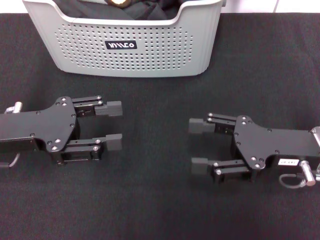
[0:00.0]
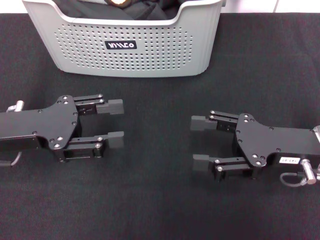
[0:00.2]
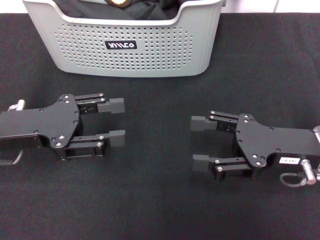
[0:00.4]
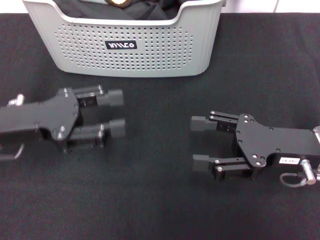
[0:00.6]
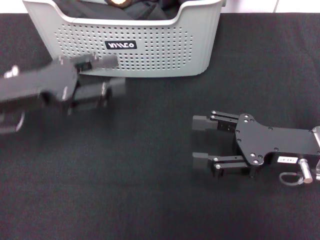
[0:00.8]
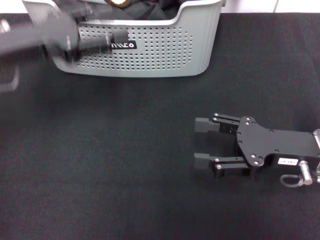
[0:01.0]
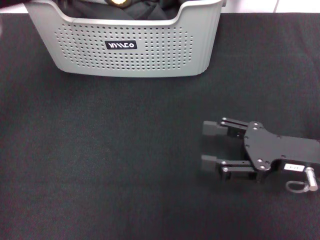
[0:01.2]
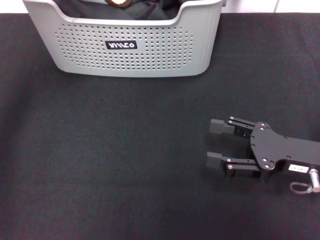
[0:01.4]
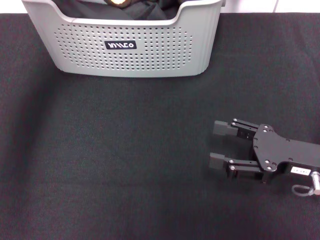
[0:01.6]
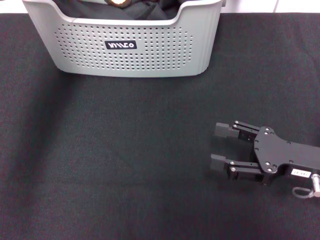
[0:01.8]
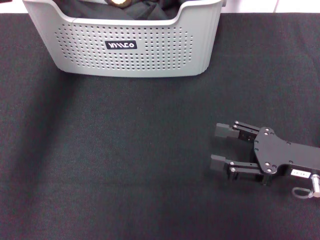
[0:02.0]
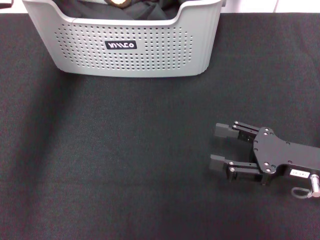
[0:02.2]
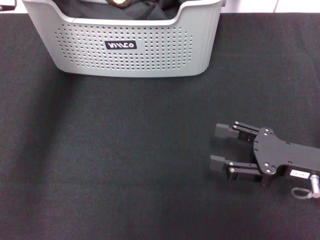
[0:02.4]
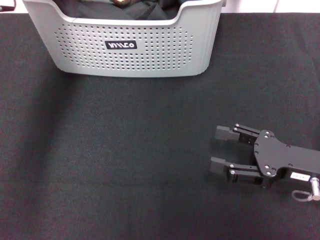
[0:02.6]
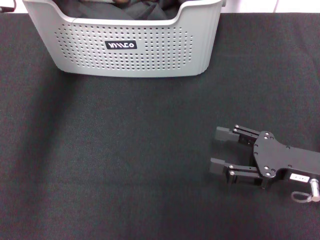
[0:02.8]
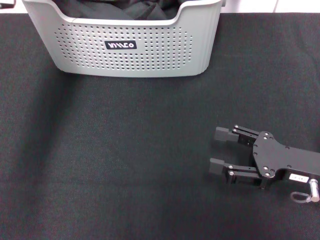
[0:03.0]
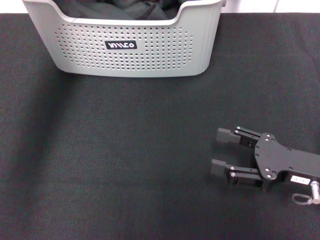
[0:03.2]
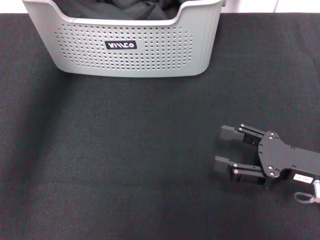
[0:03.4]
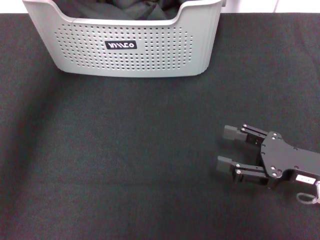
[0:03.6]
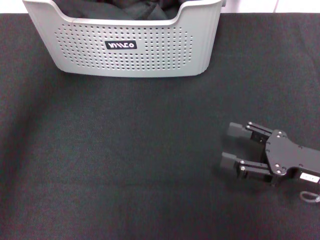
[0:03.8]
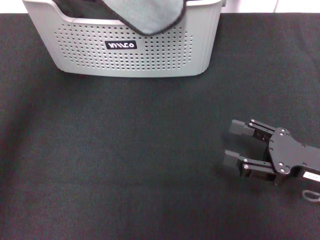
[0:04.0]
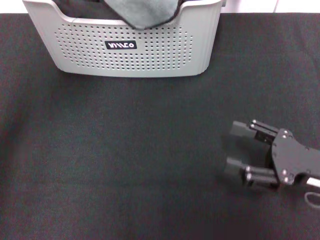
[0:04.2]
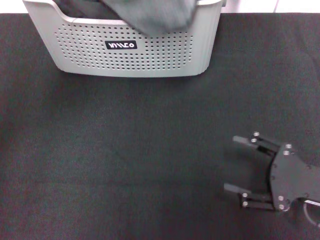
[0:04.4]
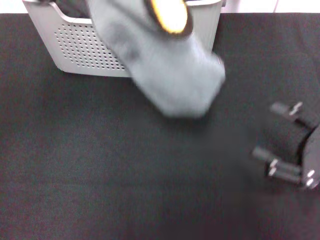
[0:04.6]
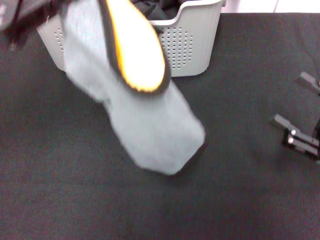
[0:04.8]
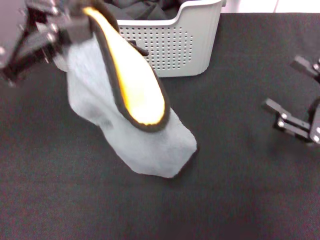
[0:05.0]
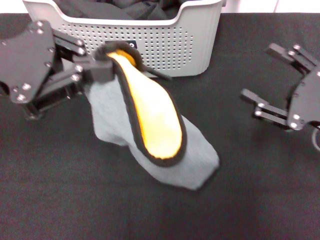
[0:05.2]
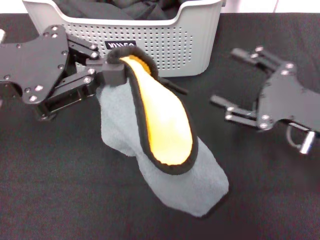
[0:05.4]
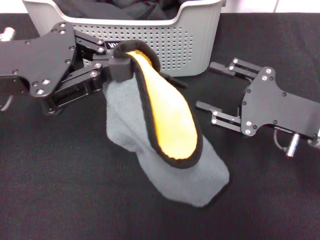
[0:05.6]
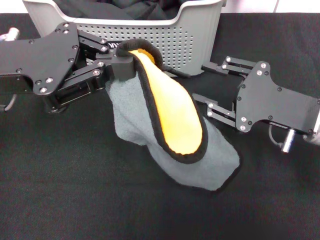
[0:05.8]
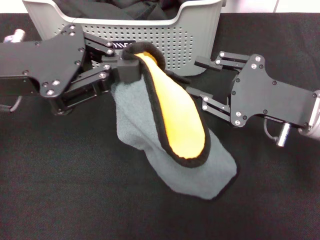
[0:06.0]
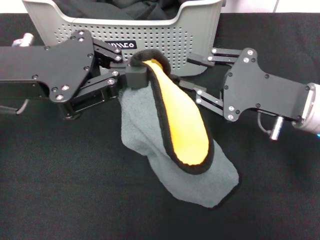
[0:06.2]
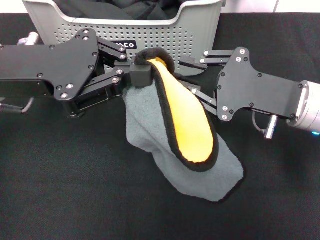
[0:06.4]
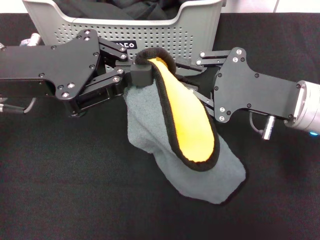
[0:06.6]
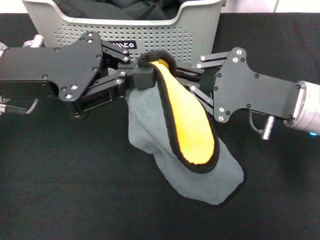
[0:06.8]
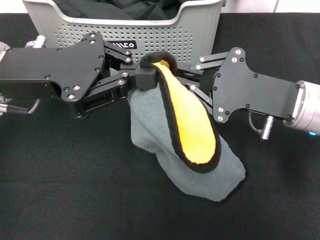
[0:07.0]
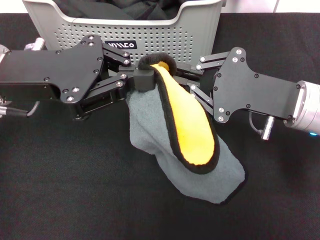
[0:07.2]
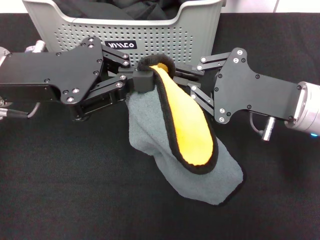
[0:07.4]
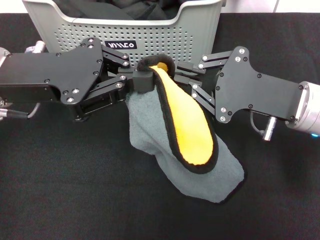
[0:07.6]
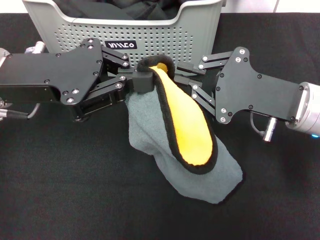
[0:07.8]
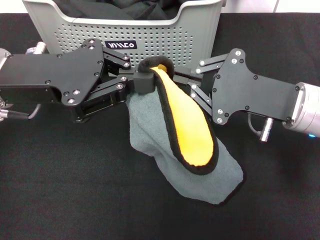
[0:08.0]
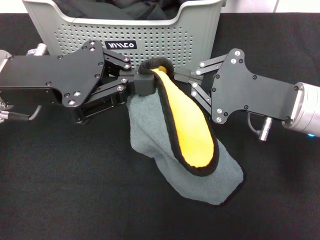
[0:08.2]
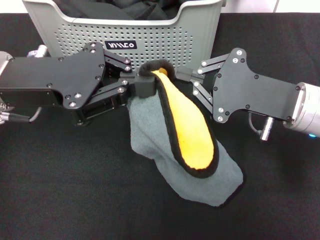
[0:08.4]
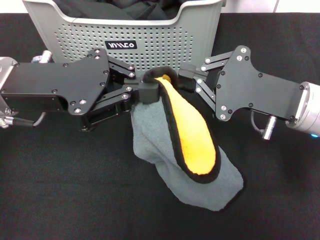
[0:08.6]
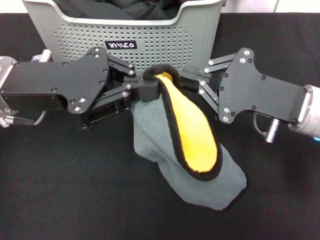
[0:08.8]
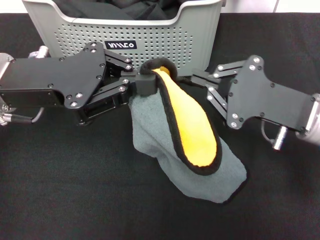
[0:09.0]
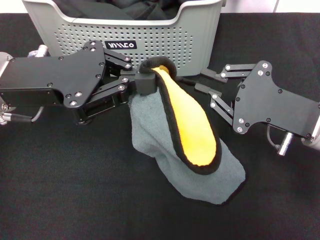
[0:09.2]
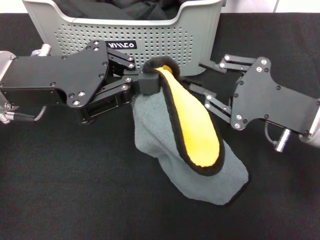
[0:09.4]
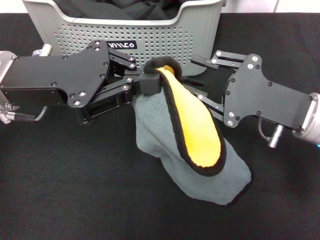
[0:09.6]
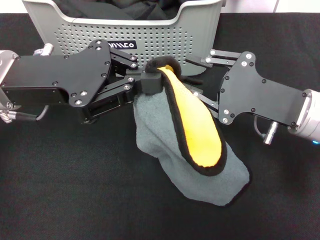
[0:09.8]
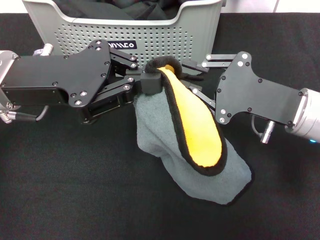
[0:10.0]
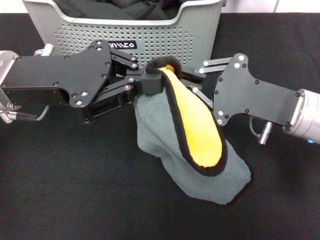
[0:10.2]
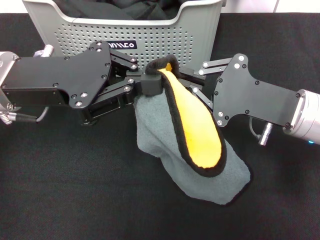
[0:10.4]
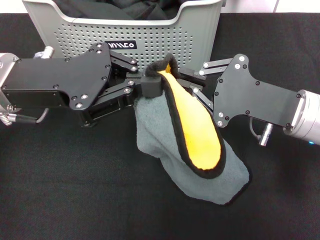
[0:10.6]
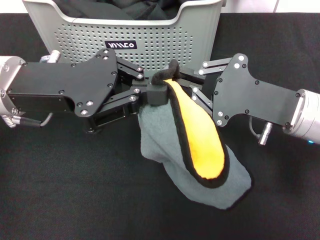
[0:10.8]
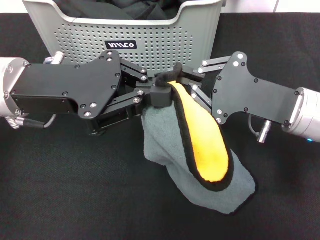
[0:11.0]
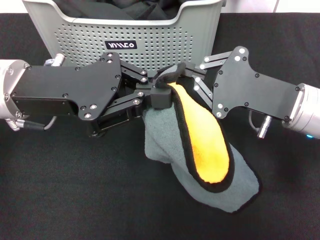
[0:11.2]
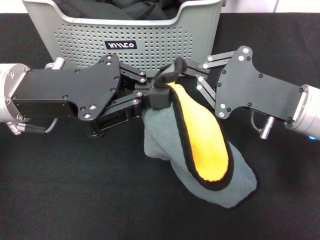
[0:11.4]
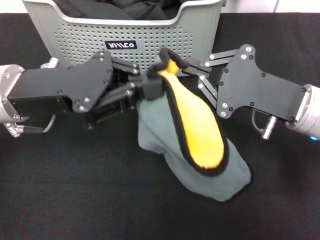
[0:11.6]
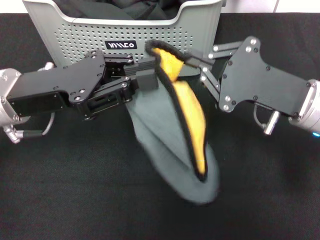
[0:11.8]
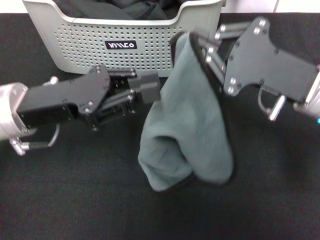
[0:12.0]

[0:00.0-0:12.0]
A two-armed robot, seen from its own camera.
Task of the whole recording: pick up the towel from the storage box and lay it flat on the black tablecloth.
Step, 0:00.0 to 0:02.8: Pick up a towel with the left gripper.
Step, 0:03.0 to 0:11.6: Spread the towel flat with the left gripper.
0:00.0 to 0:01.6: The left gripper shifts roughly 20 cm upward, forward and to the right.
0:01.6 to 0:03.0: The left gripper closes.
0:03.0 to 0:04.4: The left gripper is displaced backward and upward by about 15 cm, and closes its fingers.
0:04.4 to 0:06.0: The right gripper shifts about 10 cm forward, upward and to the left, and closes. The left gripper moves downward, some 10 cm.
0:06.0 to 0:07.6: The right gripper closes.
0:07.6 to 0:10.4: There are only small adjustments of the grippers.
0:10.4 to 0:12.0: The left gripper goes about 5 cm downward.

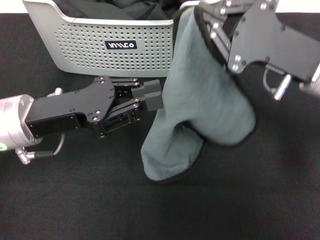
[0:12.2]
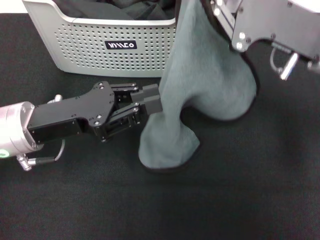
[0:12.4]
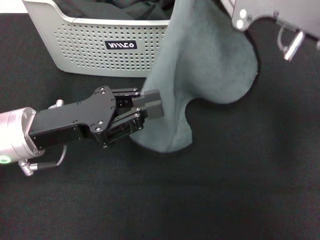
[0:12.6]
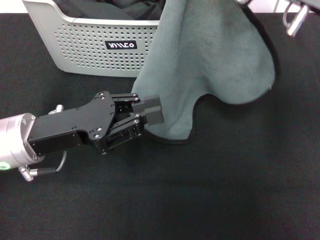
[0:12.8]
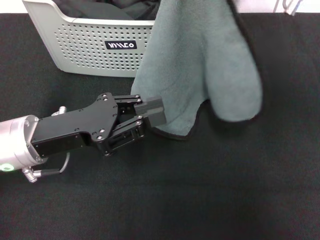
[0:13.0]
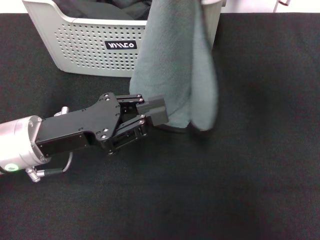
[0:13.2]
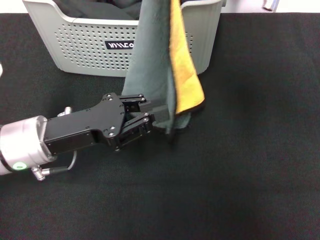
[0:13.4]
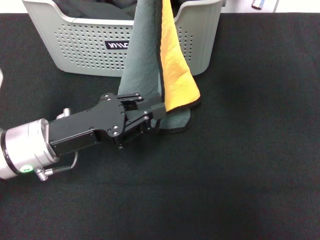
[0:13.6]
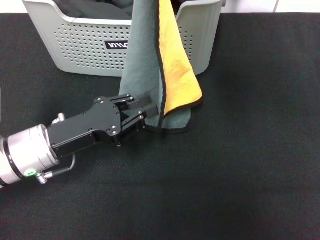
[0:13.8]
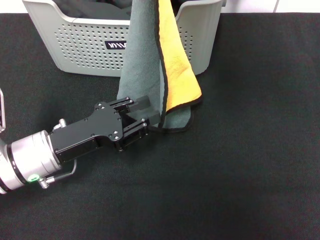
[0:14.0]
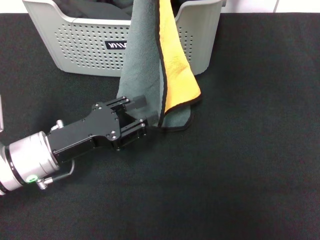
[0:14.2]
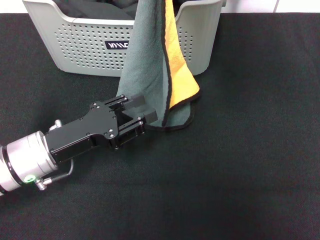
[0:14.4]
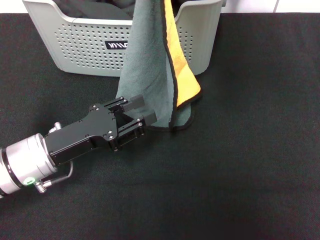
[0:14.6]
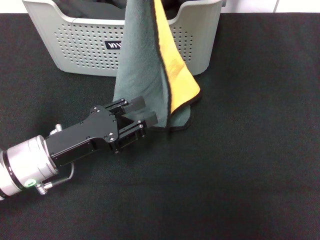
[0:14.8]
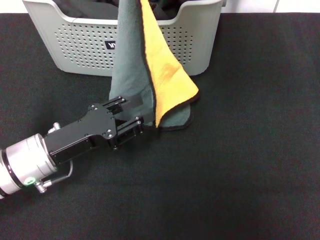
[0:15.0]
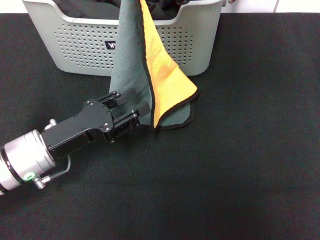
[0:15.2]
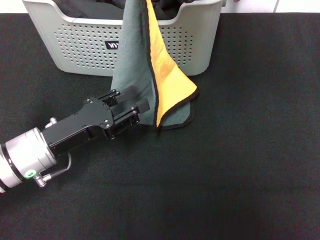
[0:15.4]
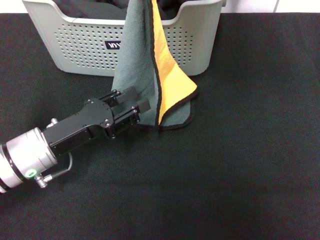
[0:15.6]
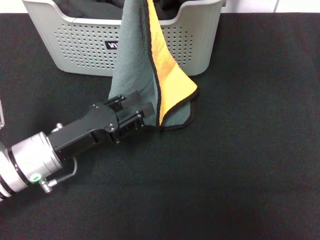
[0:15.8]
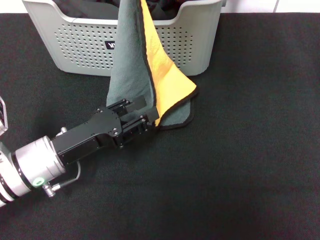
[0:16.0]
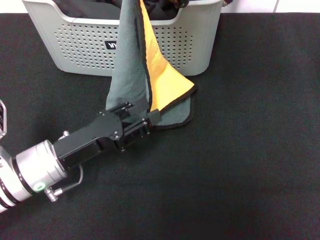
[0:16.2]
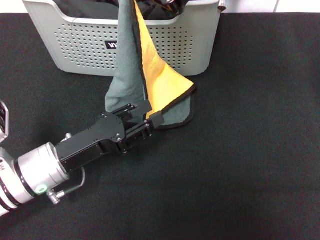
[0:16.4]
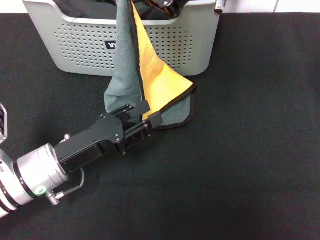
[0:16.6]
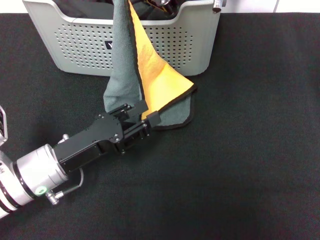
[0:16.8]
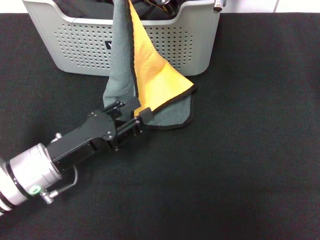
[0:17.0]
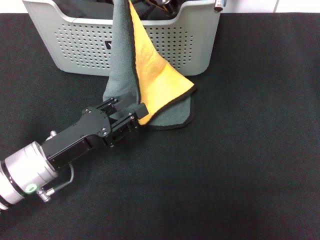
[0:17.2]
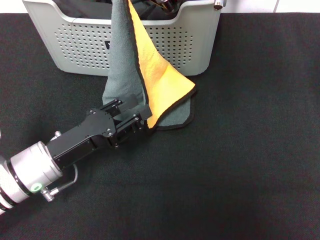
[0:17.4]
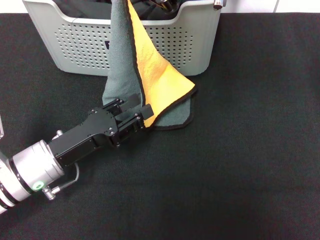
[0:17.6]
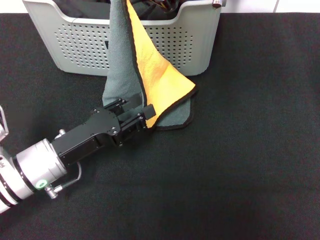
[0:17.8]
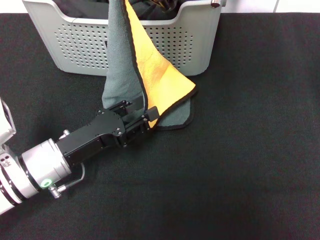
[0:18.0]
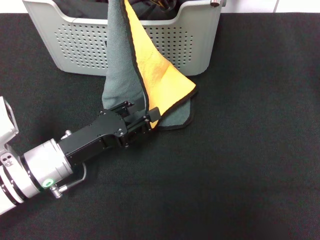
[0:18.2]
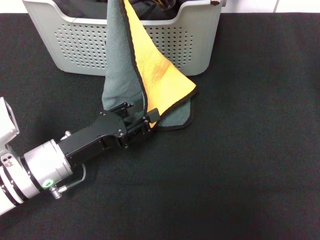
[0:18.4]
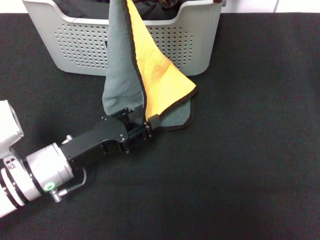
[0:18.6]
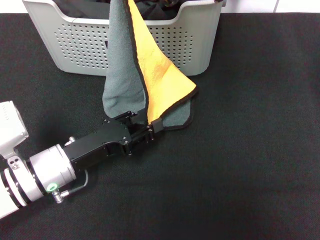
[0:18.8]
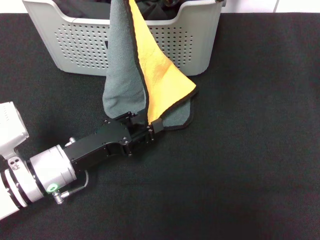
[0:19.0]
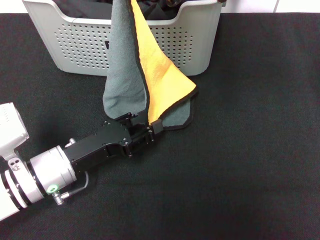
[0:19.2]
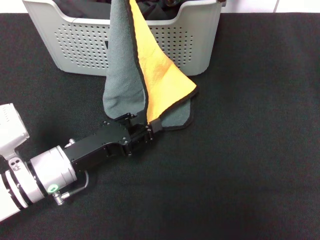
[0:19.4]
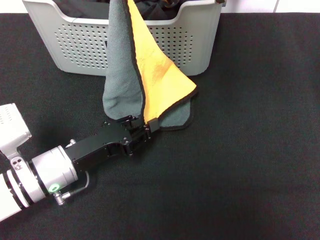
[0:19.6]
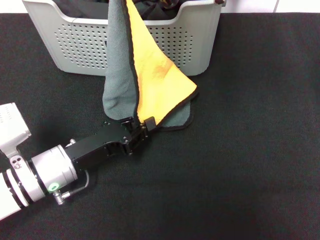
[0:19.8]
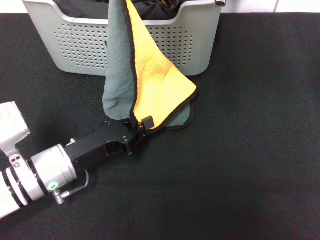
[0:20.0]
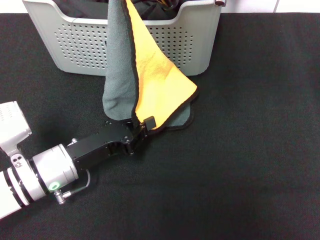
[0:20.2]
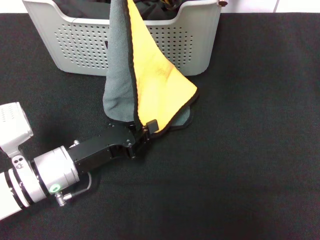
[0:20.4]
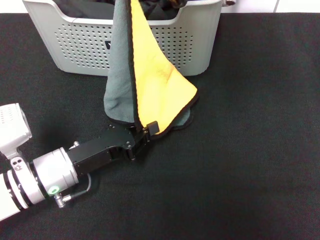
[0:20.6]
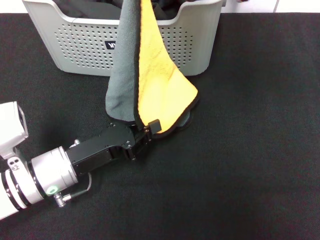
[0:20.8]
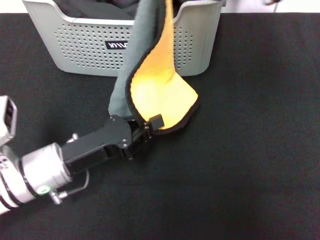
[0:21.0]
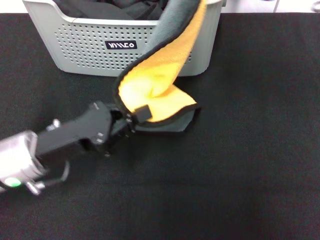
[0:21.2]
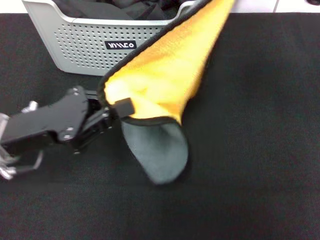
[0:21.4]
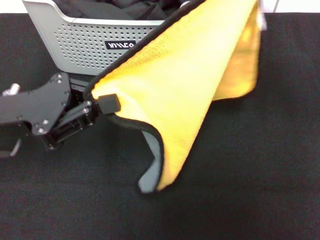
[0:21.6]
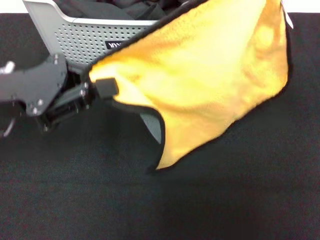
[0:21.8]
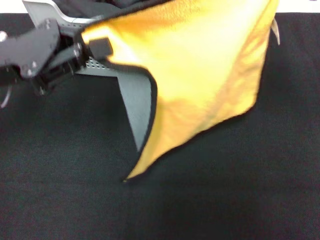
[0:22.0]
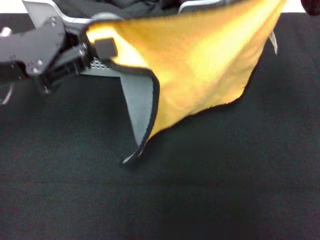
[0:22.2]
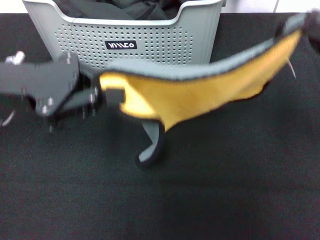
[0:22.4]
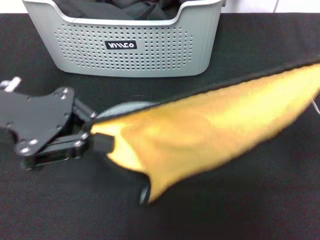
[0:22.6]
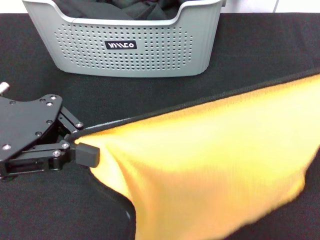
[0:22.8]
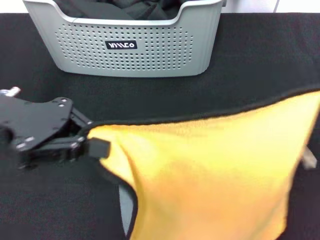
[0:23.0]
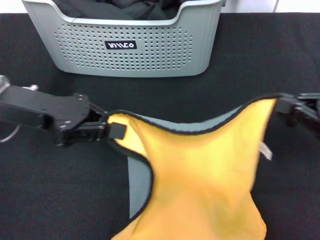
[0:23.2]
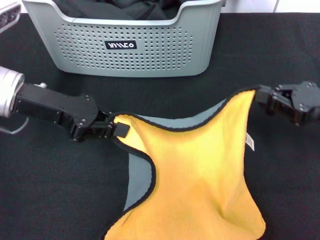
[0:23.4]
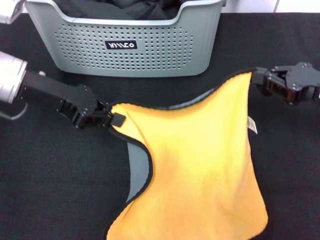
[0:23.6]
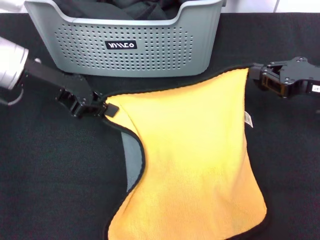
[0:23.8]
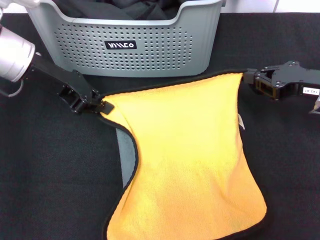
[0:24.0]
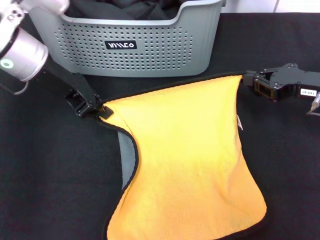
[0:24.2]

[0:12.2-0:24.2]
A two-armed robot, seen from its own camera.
Task of the whole recording: pick up the towel from the storage box and lay it flat on the black tablecloth.
0:12.2 to 0:13.8: The left gripper is displaced downward by some 5 cm; the right gripper travels upward and to the left by roughly 15 cm.
0:13.8 to 0:15.2: The left gripper opens its fingers. Meanwhile the right gripper ends up about 5 cm from where it was.
0:15.2 to 0:18.2: There are only small adjustments of the grippers.
0:18.2 to 0:19.8: The left gripper closes.
0:19.8 to 0:21.2: The left gripper heads upward, covering some 5 cm, and closes; the right gripper shifts approximately 10 cm to the right.
0:21.2 to 0:22.6: The right gripper heads backward, to the right and downward, covering approximately 15 cm. Meanwhile the left gripper is displaced upward by approximately 10 cm.
0:22.6 to 0:24.2: The left gripper heads forward, covering about 10 cm; the right gripper heads forward and downward, covering about 20 cm.
